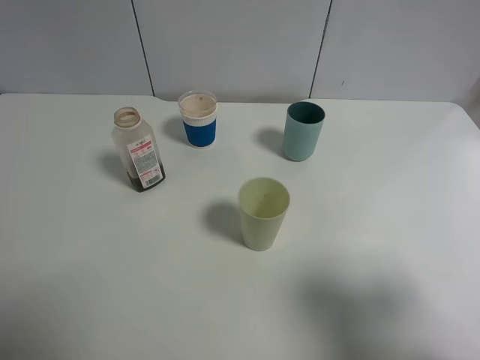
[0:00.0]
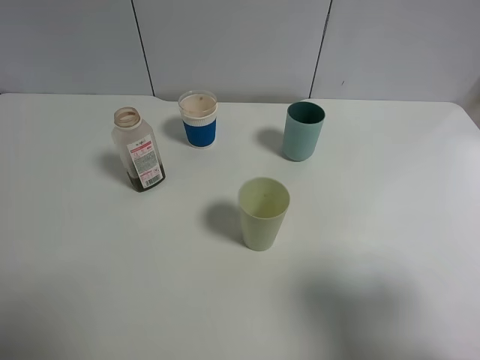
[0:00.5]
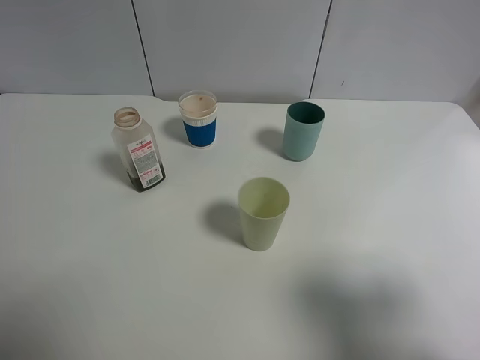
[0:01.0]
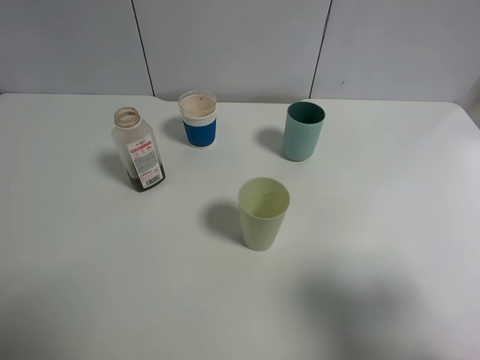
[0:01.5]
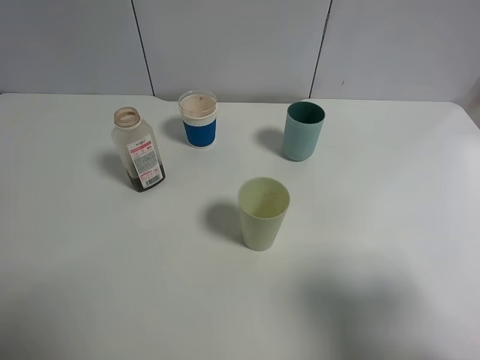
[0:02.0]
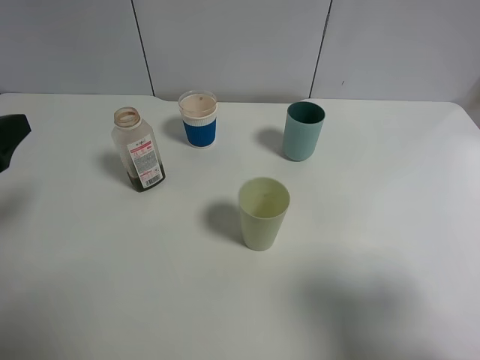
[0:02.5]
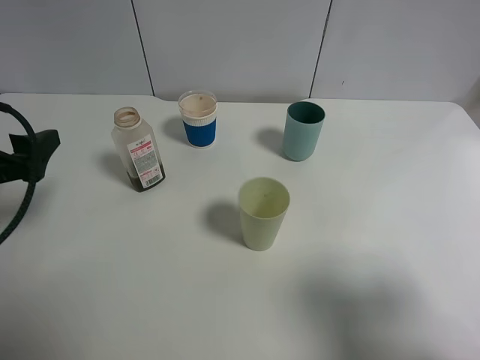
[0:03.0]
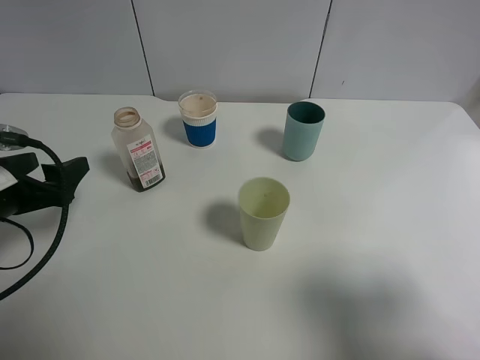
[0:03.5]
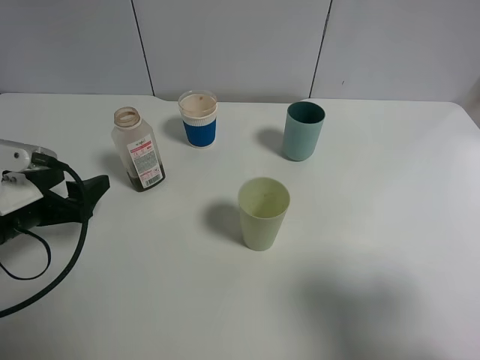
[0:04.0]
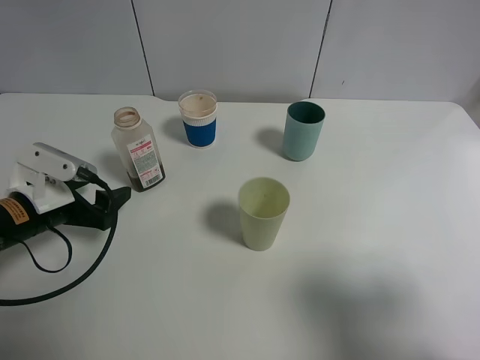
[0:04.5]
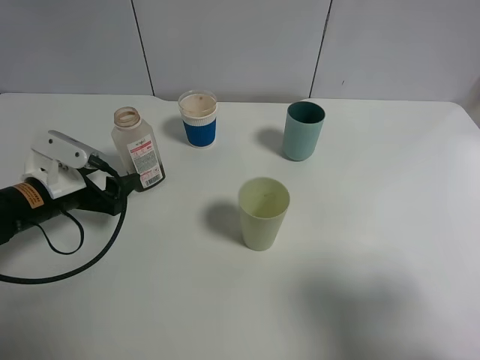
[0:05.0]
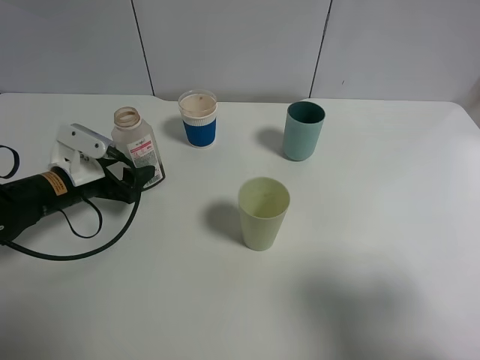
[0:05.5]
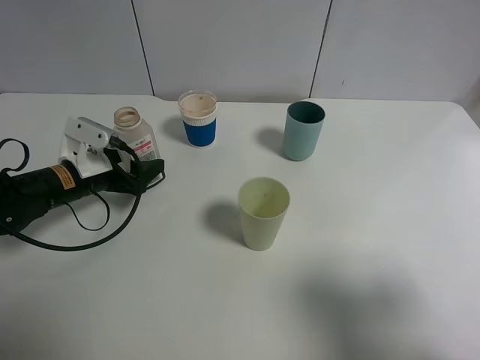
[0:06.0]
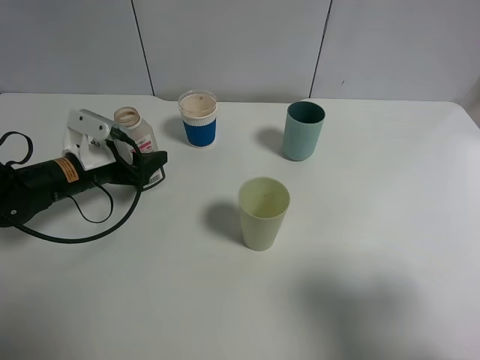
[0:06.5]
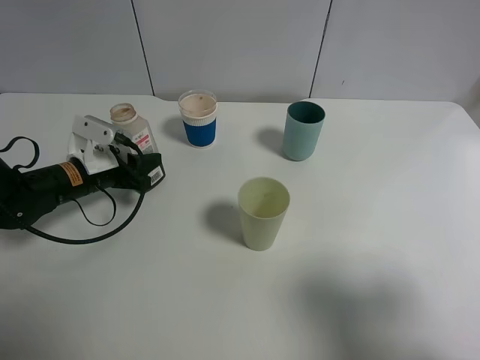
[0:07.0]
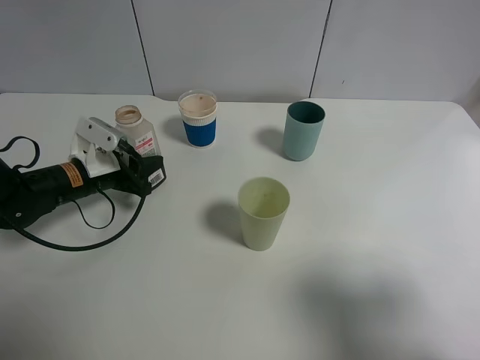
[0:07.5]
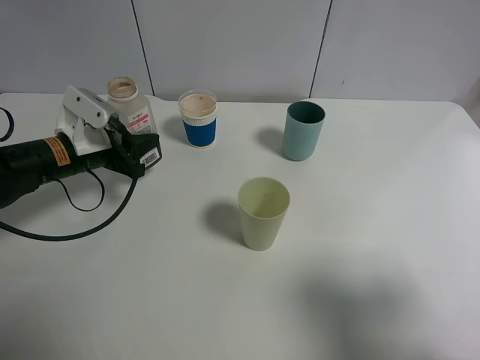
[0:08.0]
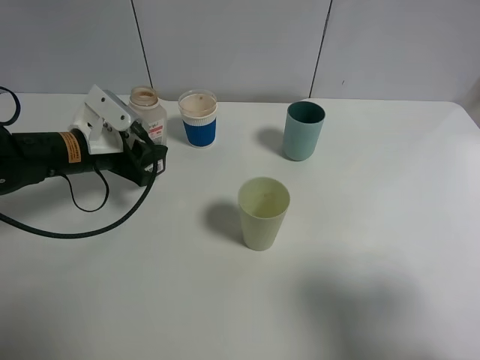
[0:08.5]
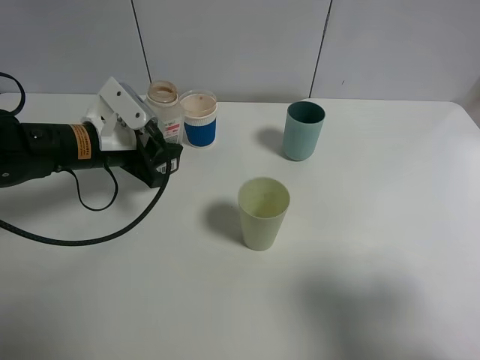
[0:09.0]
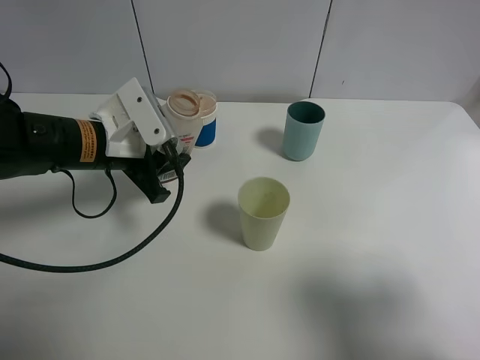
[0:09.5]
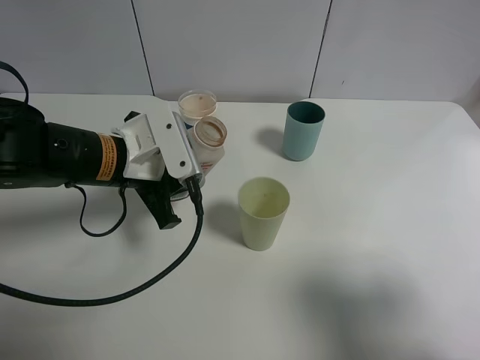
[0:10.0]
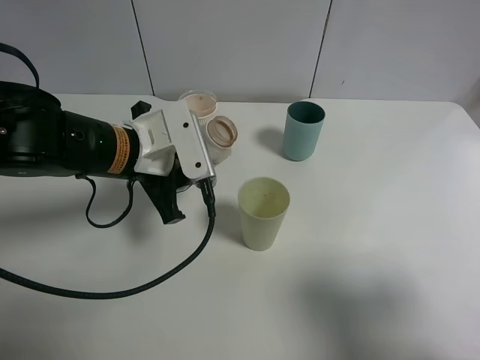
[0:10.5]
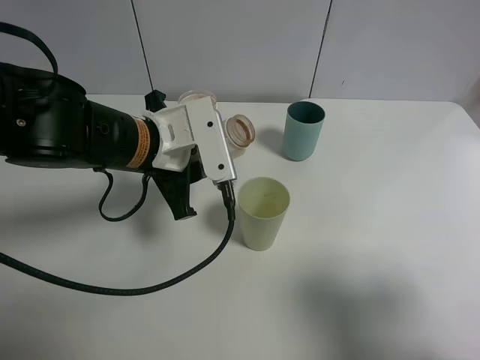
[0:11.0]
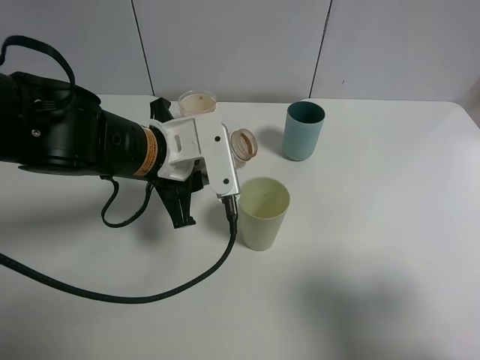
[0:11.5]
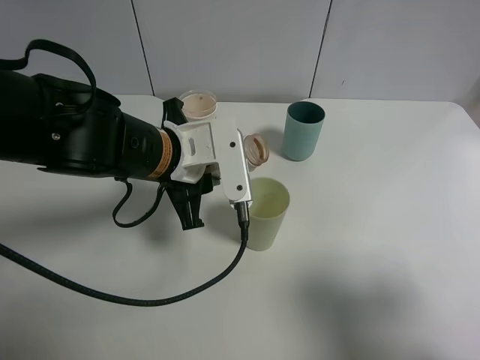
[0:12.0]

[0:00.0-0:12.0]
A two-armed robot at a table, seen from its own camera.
Task of the whole recording: use a gripper to hold the bottle of the drink and pour it into a random cup.
Step, 0:00.0 to 0:07.0: Grasp the cranberry juice bottle with the left gripper.
0:02.0 to 0:04.0: The left gripper shifts approximately 20 cm downward and forward.
0:04.0 to 0:06.0: The left gripper is displaced forward by roughly 10 cm.
0:06.0 to 0:08.0: The left gripper closes its fingers.
0:08.0 to 0:10.0: The left gripper travels to the right and backward by some 10 cm.
0:10.0 to 0:12.0: The left gripper is displaced to the right by about 5 cm.

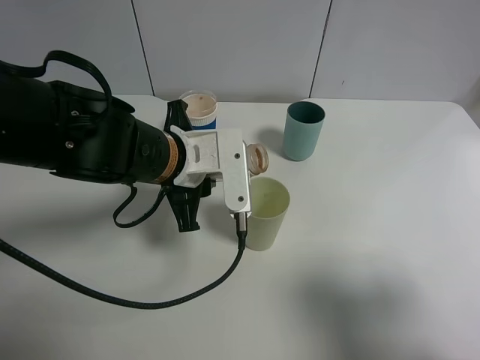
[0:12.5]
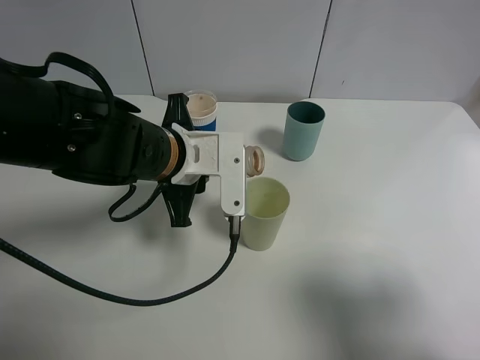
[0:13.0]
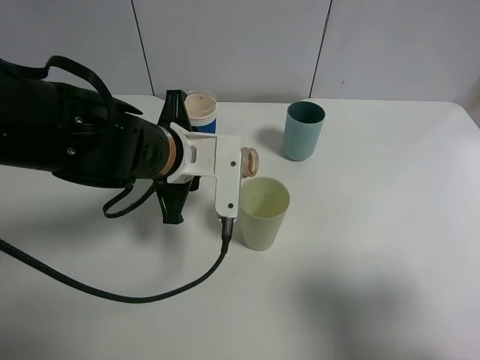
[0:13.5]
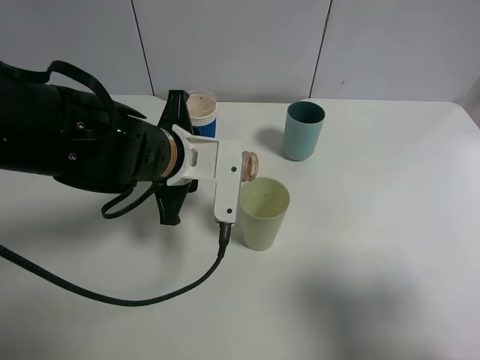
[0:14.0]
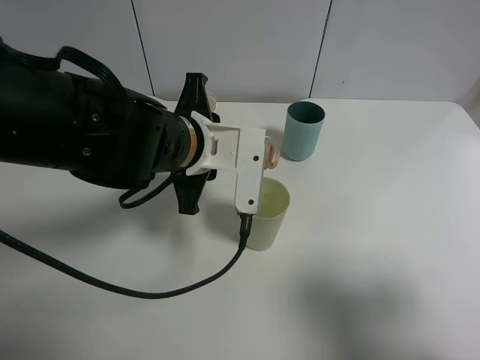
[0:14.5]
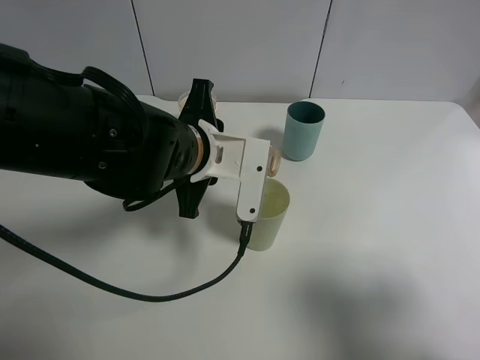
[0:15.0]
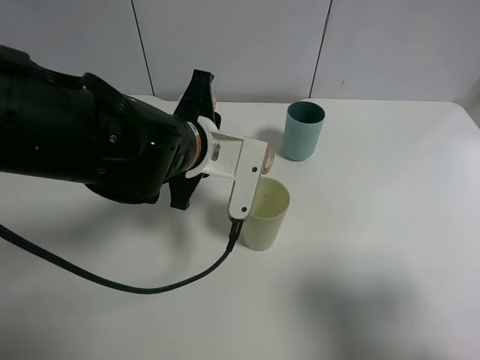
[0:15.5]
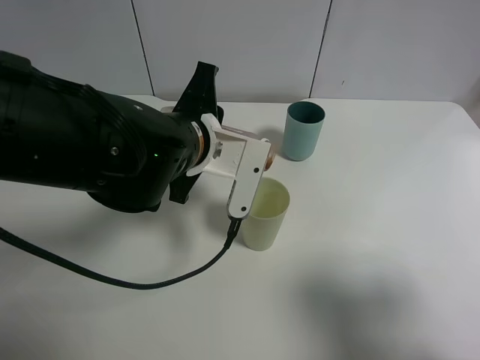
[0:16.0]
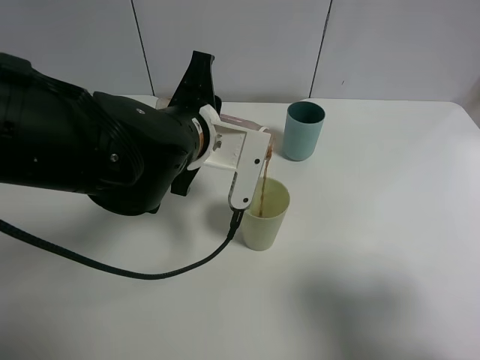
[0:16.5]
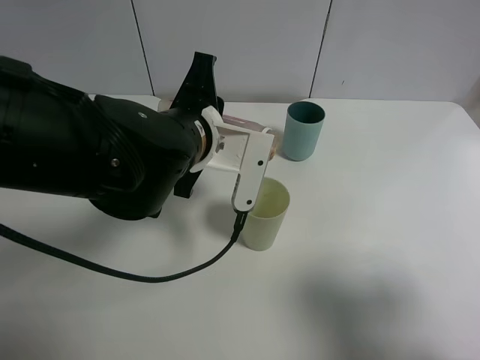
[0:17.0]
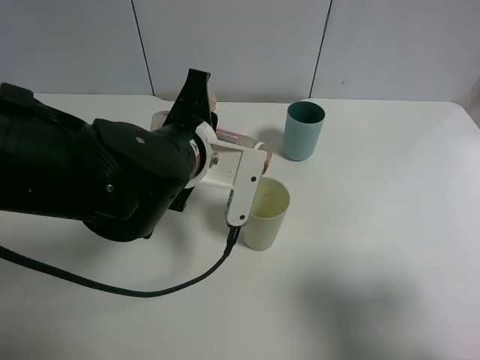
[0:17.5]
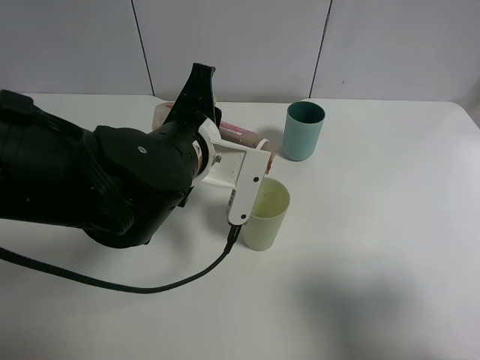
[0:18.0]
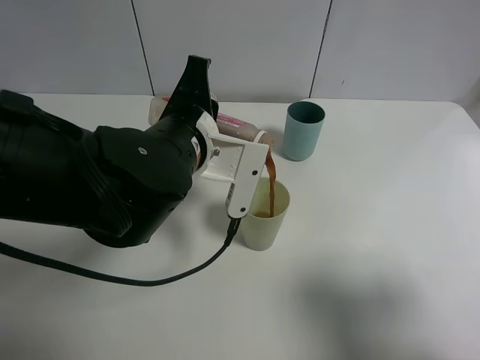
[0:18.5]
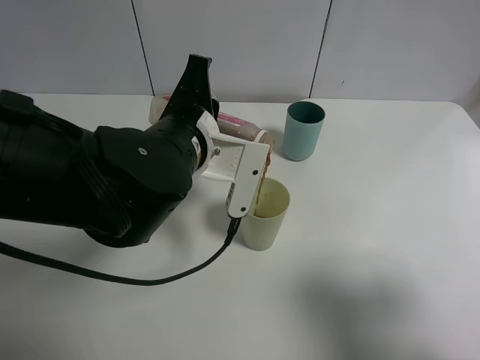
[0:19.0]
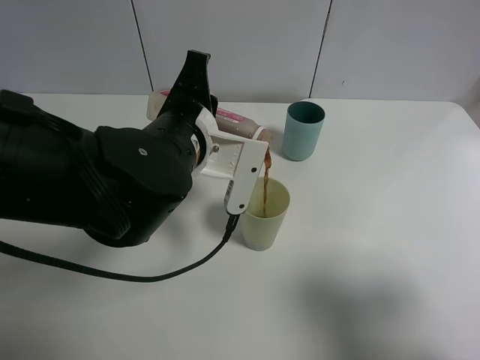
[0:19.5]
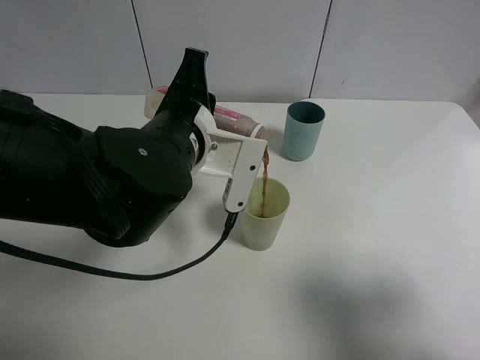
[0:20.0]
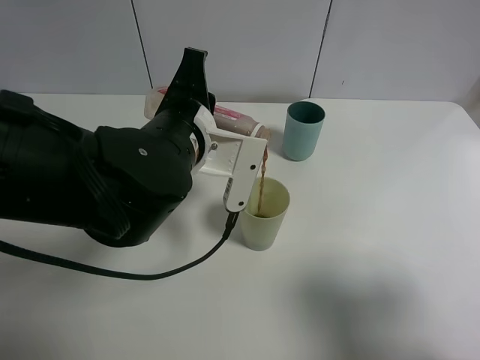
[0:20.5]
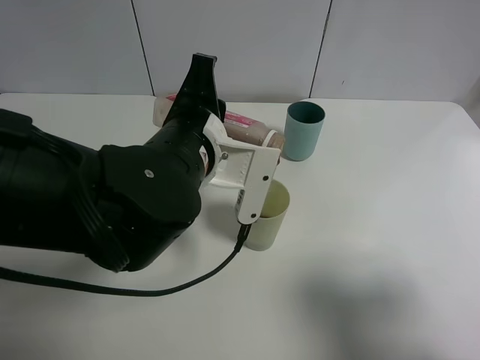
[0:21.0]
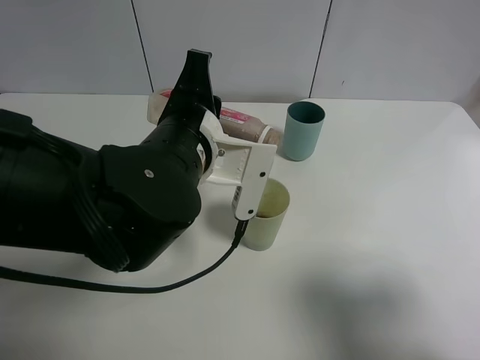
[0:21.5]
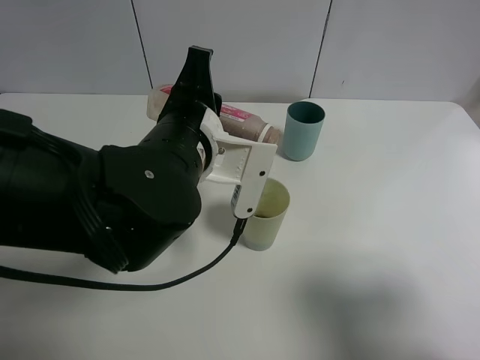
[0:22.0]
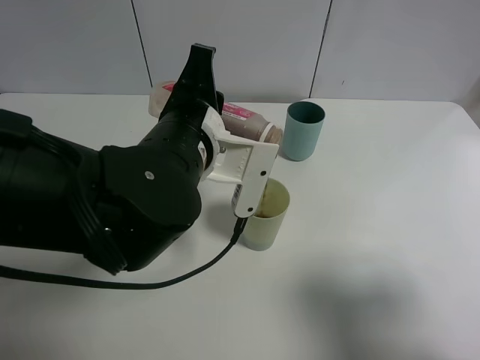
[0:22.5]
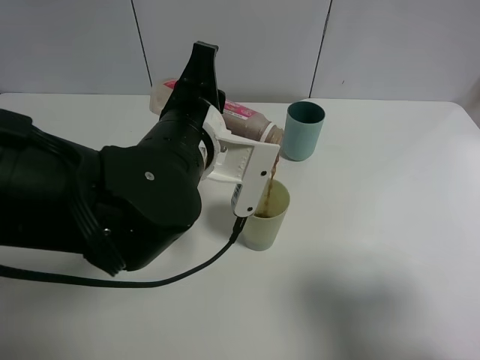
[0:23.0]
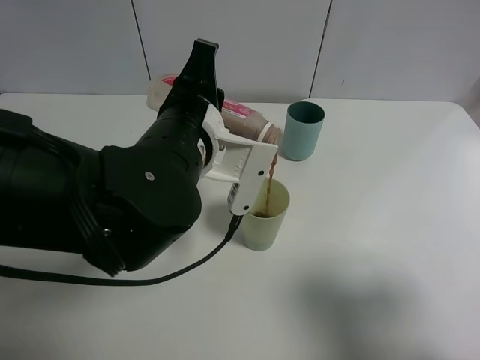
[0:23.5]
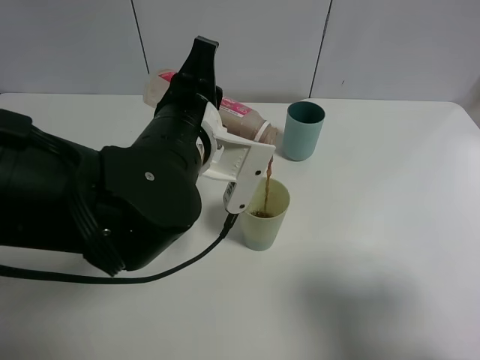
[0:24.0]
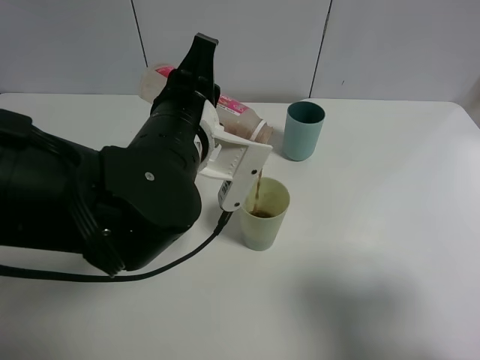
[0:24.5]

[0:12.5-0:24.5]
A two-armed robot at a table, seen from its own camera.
Task of the whole recording: use a gripper to hold the bottle of the drink and pour it into a random cup.
0:12.5 to 0:14.5: The grippers make only small movements.
0:14.5 to 0:16.5: There are only small adjustments of the grippers.
0:16.5 to 0:18.5: The grippers make only small movements.
0:18.5 to 0:20.5: Both grippers stay about where they are.
0:20.5 to 0:24.5: There are only small adjustments of the grippers.

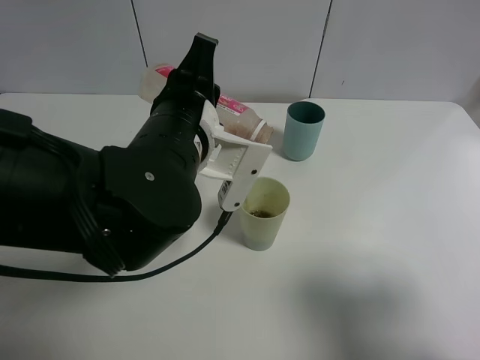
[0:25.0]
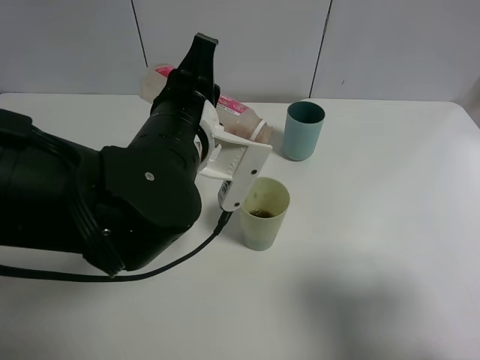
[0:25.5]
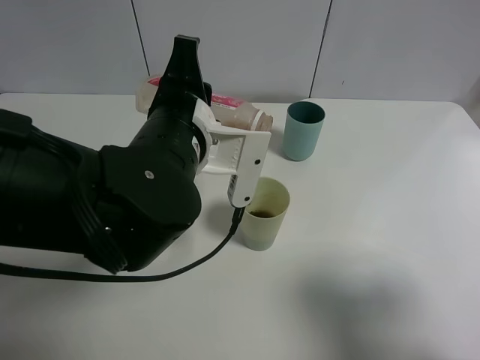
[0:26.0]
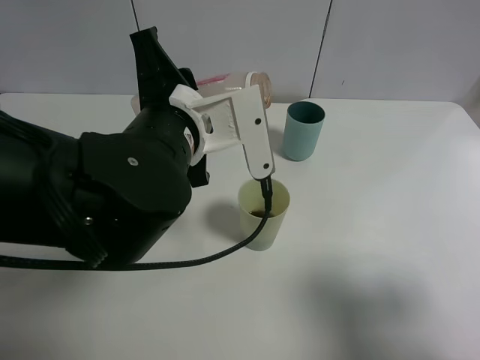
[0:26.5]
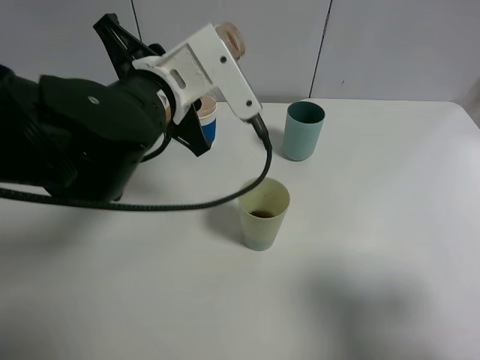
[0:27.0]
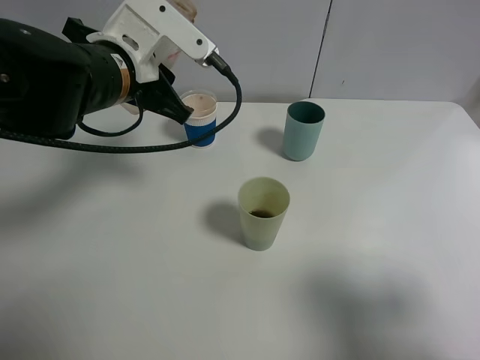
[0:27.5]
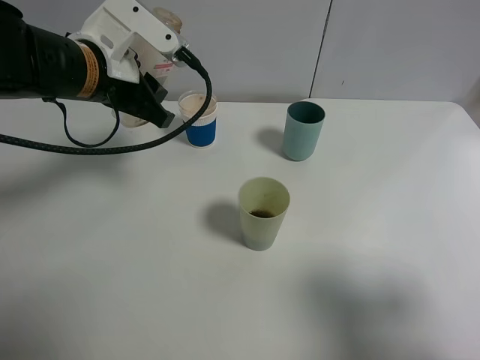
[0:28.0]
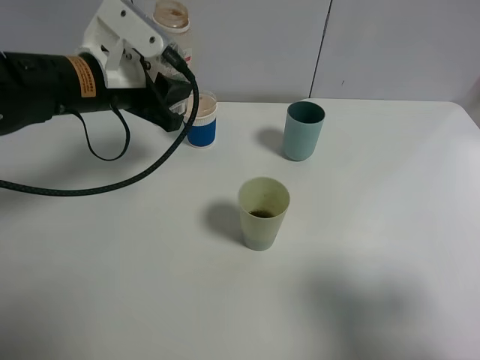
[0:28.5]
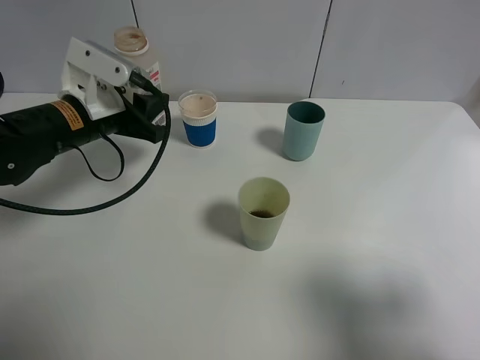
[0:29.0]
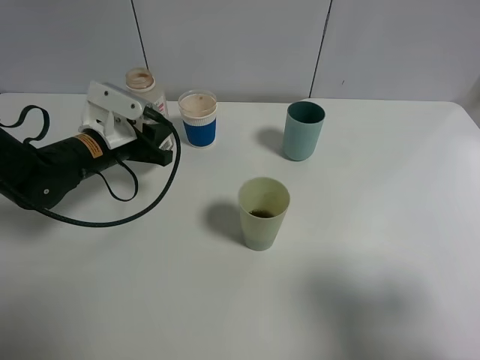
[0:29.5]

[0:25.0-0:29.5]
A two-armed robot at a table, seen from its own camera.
Task of the whole recording: use a gripper to hold the bottle of the drink and pour it into a random cup.
0:25.0 to 0:27.0: The left gripper shifts by some 5 cm.
0:27.0 to 0:29.5: The left gripper goes roughly 20 cm to the left, downward and forward.
